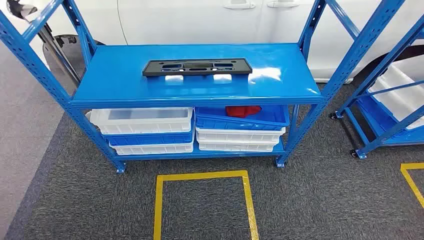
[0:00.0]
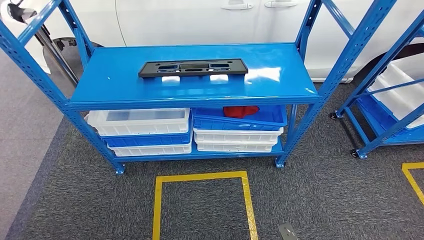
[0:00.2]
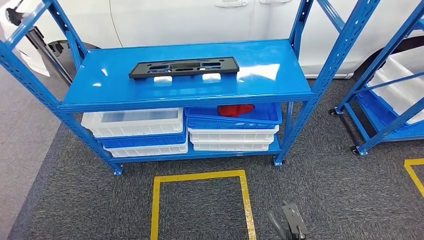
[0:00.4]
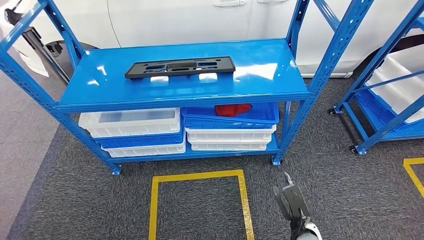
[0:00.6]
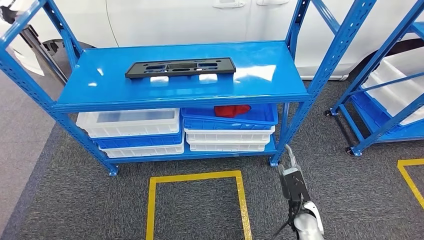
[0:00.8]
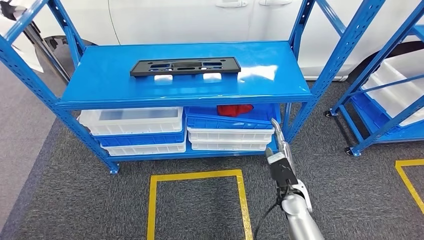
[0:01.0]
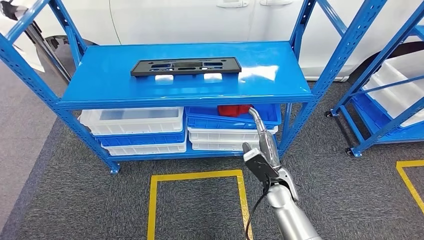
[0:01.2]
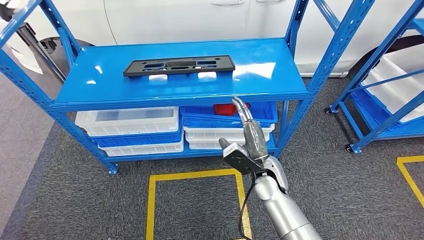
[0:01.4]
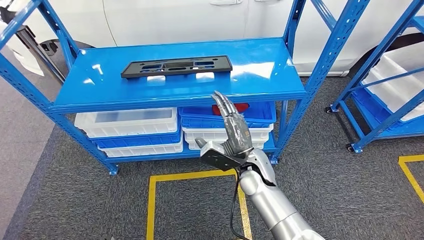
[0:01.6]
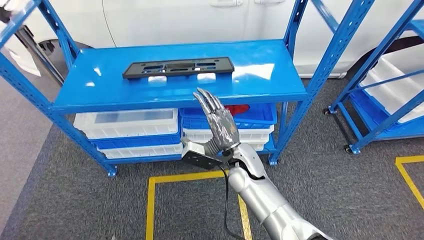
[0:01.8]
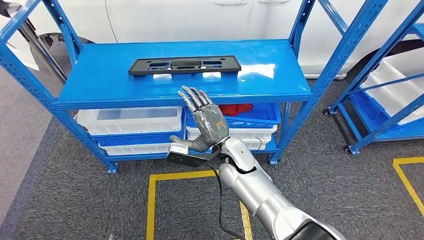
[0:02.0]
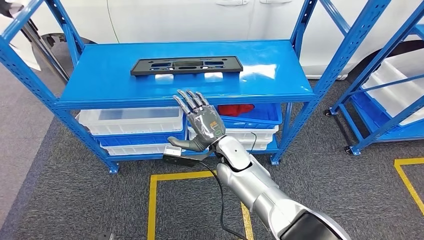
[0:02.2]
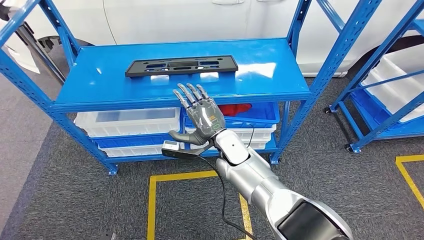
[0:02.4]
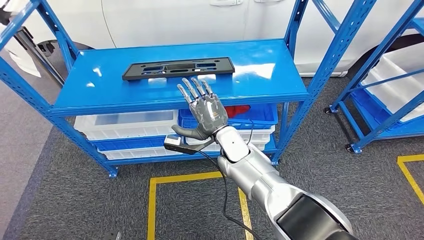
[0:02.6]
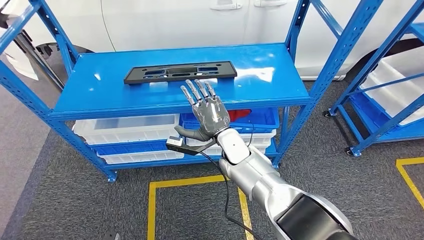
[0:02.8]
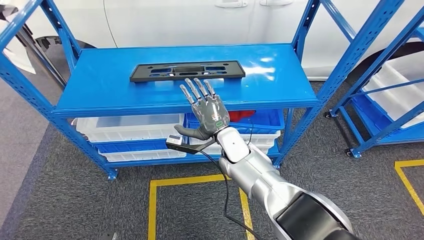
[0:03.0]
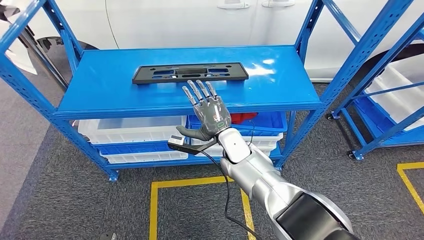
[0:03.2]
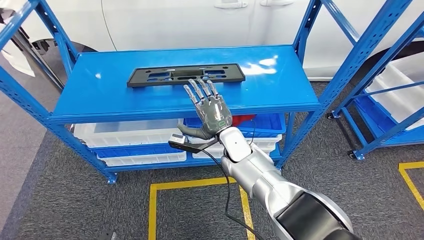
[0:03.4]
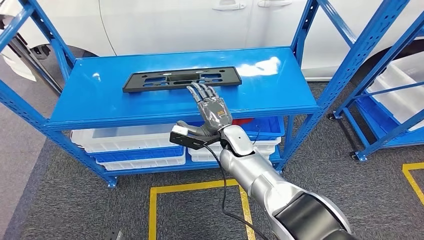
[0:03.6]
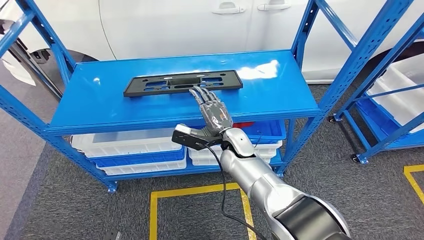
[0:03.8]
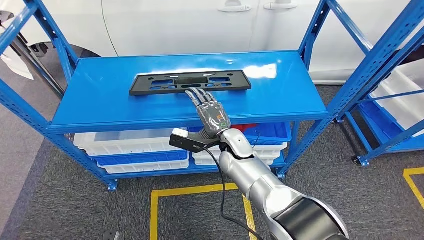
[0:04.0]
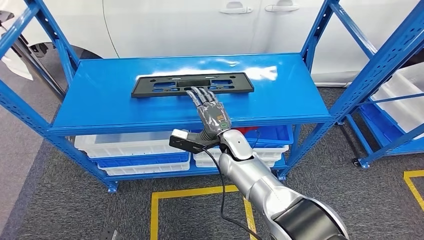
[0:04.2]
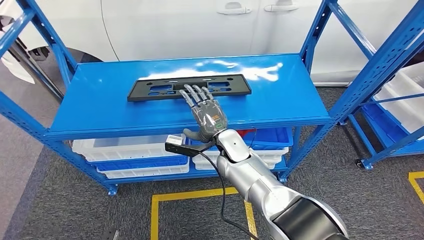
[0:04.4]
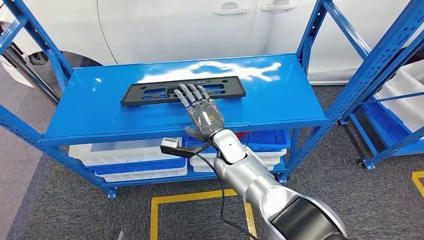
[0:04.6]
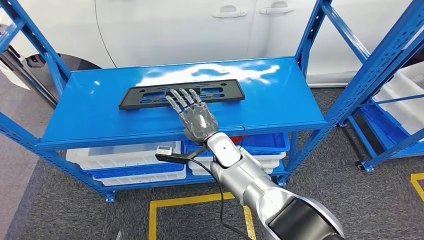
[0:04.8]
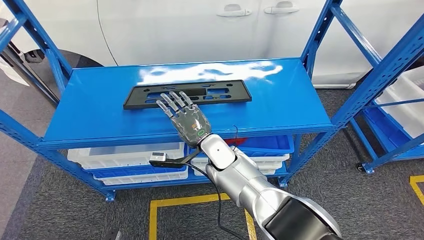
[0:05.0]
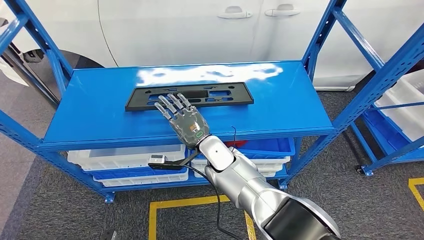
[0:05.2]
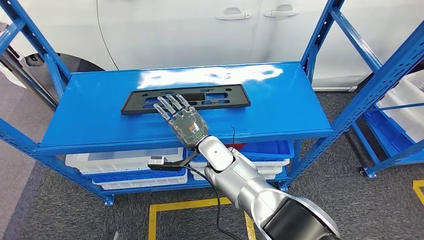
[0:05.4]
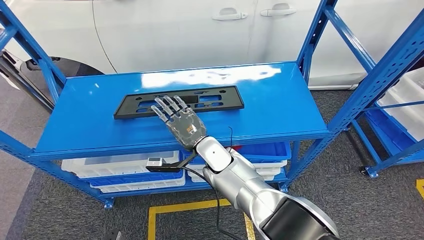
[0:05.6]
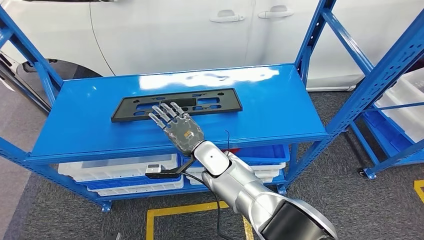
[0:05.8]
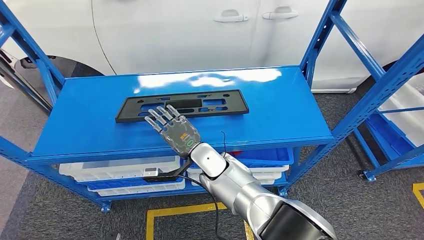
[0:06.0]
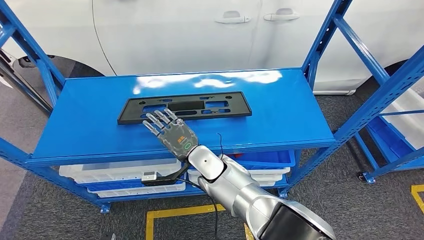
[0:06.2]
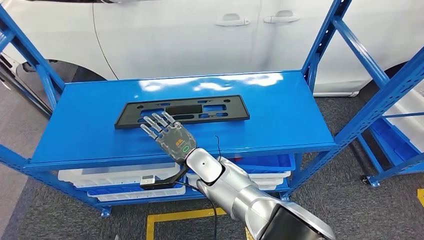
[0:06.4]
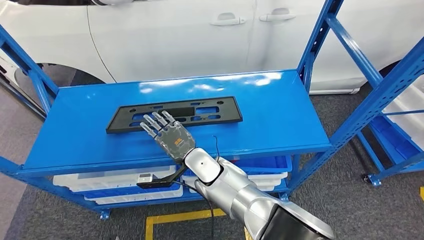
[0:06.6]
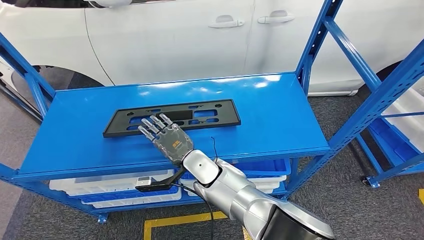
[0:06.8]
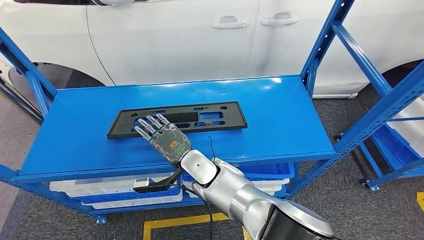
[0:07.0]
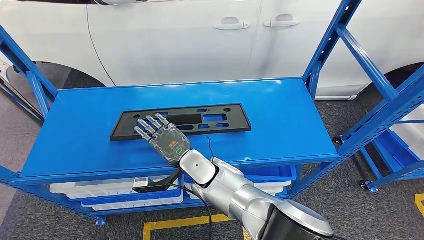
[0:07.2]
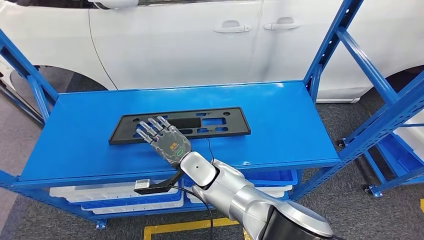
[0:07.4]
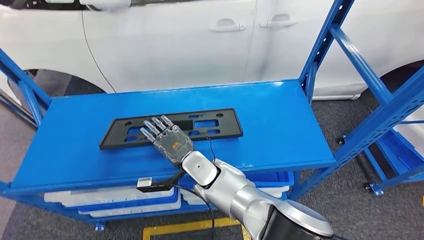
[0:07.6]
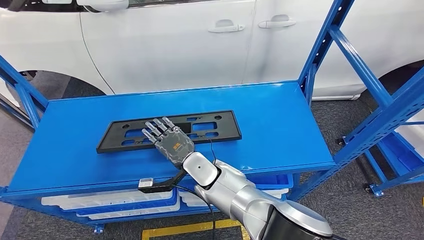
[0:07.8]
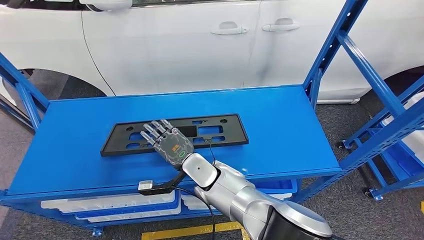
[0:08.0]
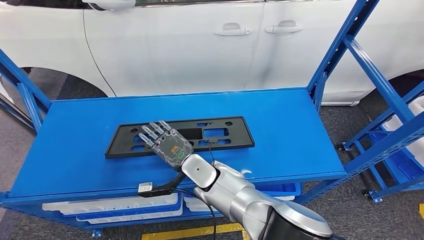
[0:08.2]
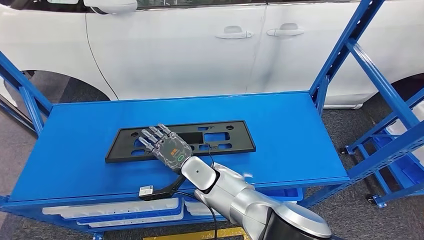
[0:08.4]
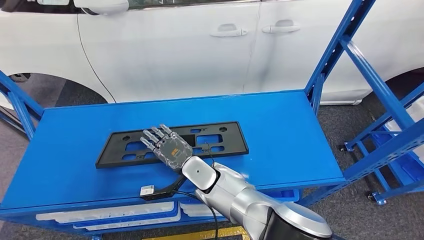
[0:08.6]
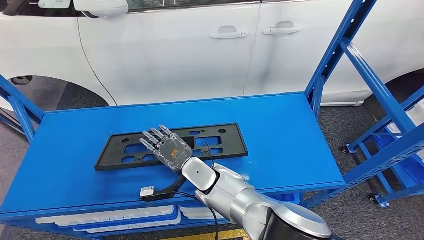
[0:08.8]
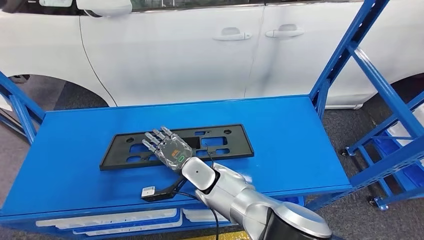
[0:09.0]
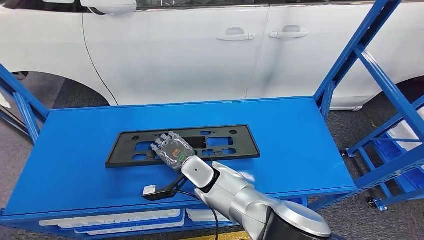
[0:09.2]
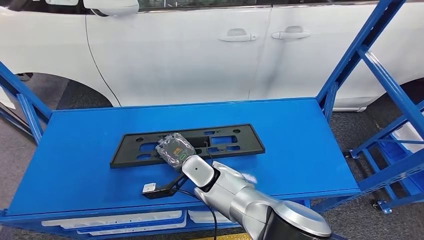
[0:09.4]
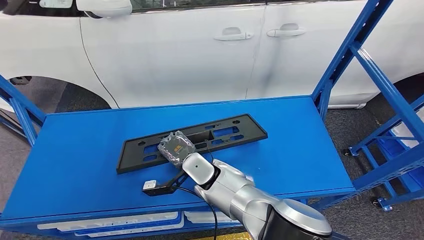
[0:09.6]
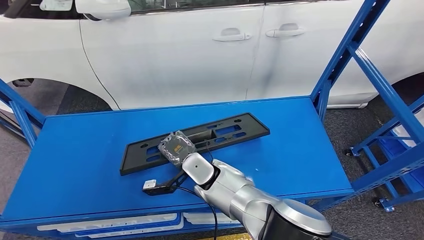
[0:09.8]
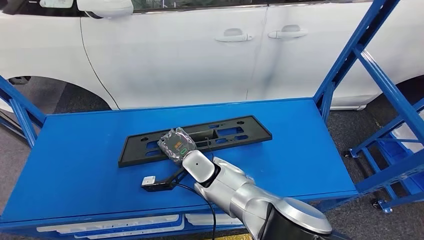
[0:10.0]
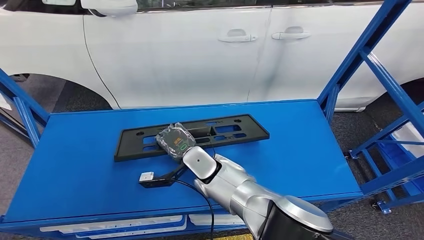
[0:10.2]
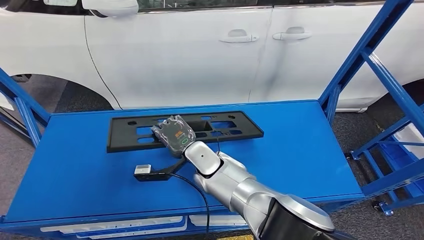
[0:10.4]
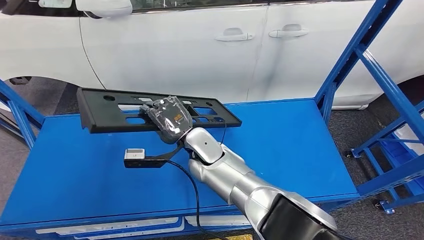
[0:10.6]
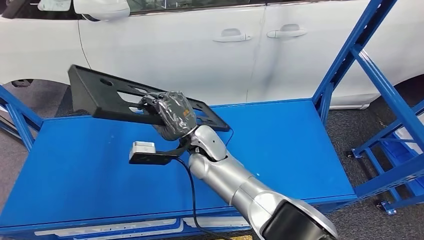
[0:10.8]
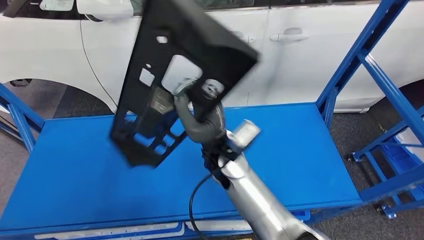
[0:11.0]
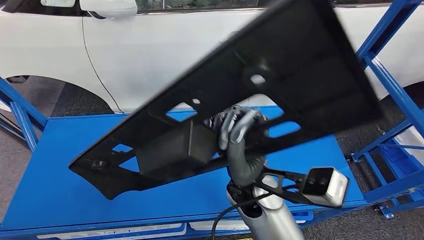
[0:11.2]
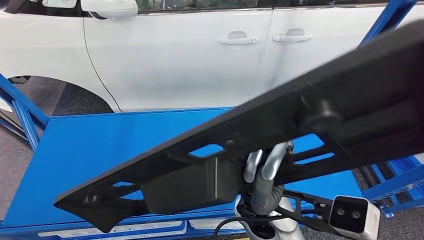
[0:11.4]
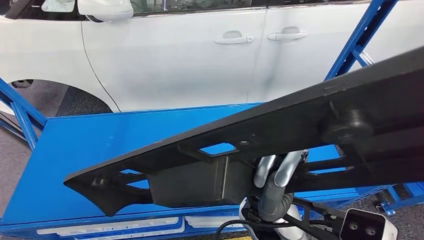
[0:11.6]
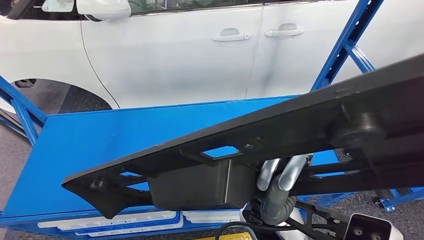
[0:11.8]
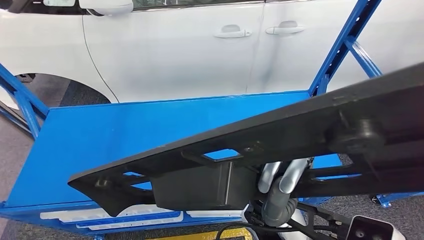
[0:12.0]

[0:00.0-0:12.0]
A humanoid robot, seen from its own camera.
Step, 0:00.0 to 0:11.8: Pick up the large material from the shelf.

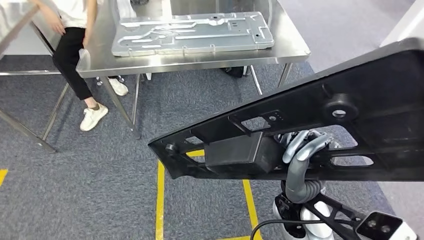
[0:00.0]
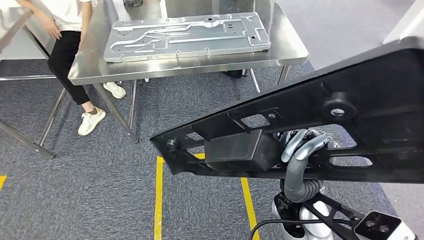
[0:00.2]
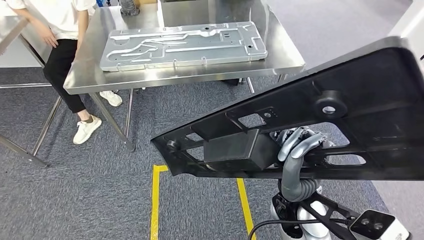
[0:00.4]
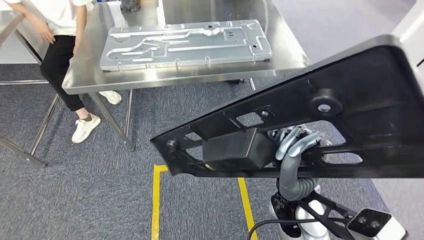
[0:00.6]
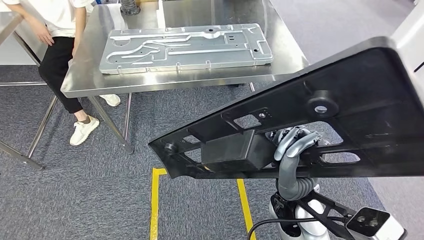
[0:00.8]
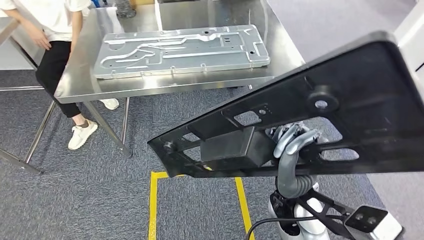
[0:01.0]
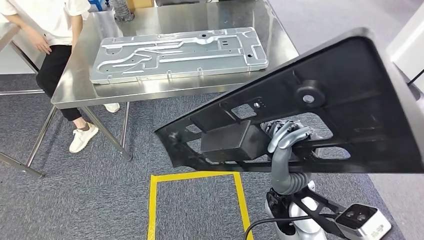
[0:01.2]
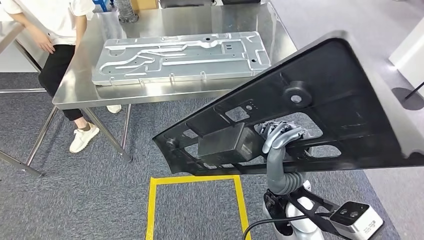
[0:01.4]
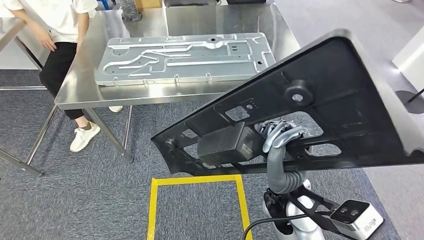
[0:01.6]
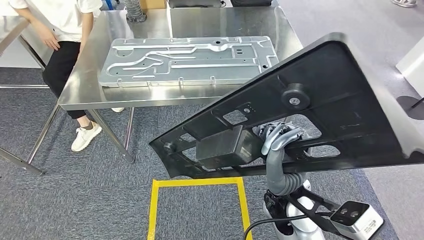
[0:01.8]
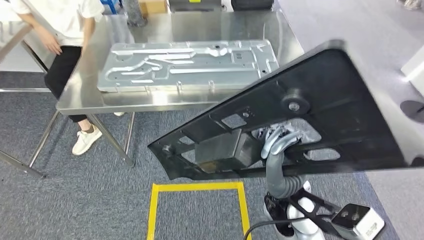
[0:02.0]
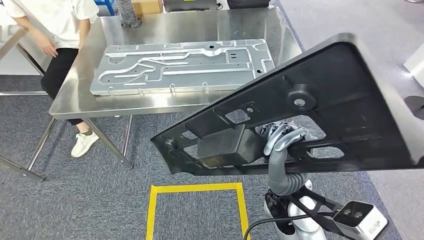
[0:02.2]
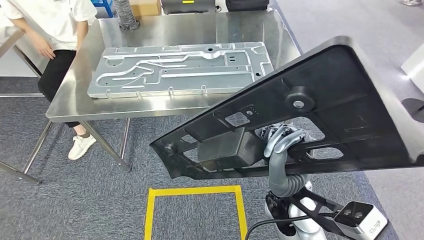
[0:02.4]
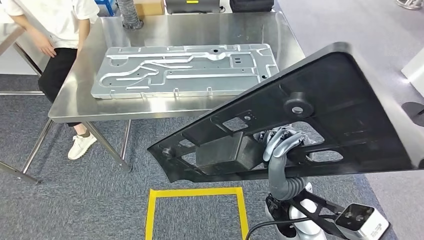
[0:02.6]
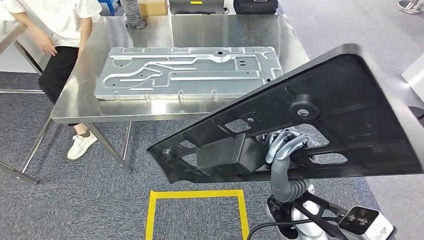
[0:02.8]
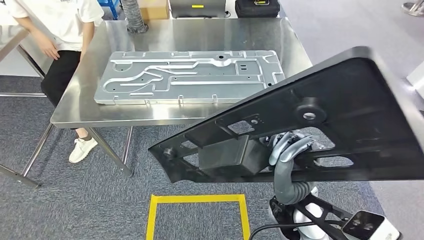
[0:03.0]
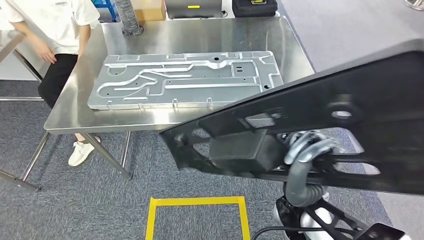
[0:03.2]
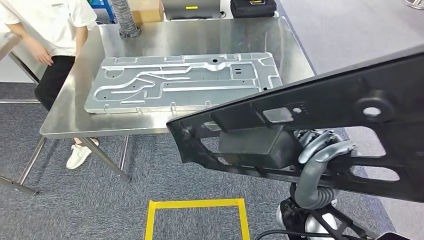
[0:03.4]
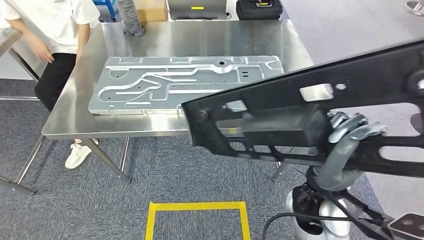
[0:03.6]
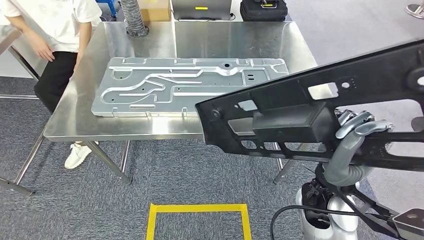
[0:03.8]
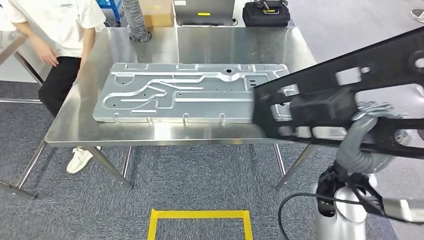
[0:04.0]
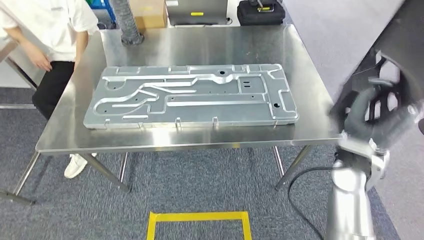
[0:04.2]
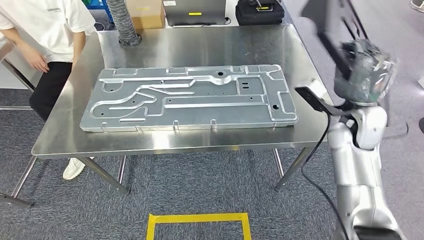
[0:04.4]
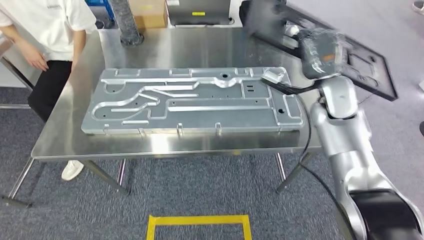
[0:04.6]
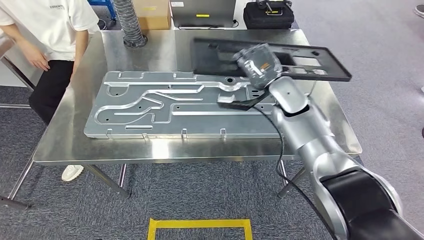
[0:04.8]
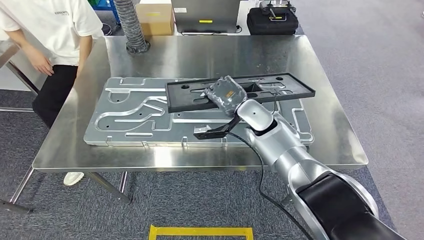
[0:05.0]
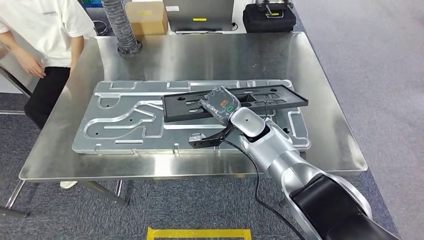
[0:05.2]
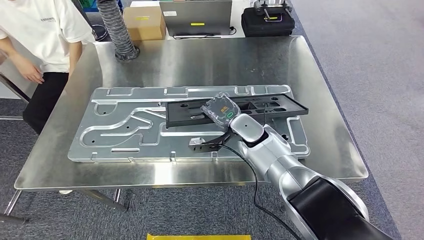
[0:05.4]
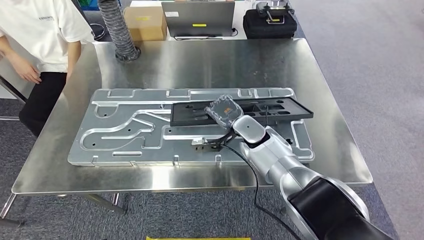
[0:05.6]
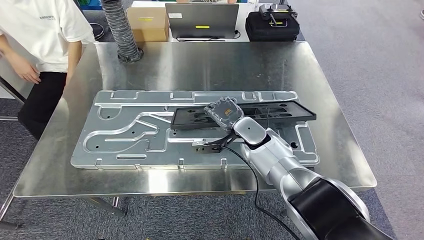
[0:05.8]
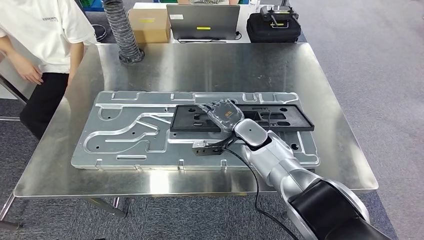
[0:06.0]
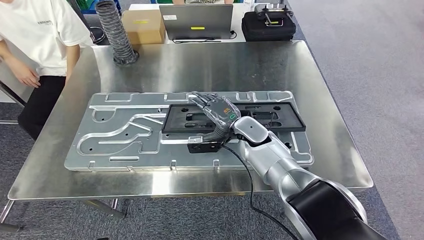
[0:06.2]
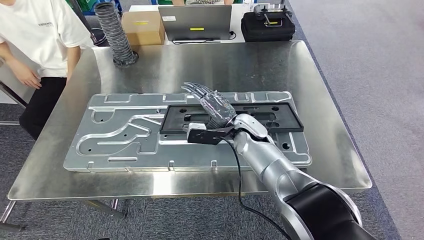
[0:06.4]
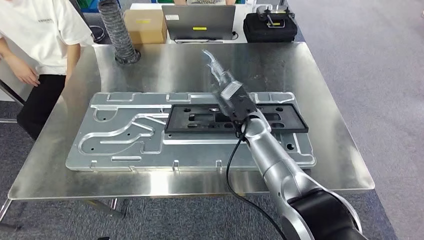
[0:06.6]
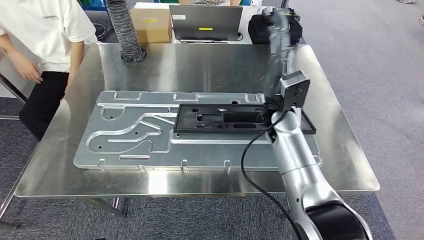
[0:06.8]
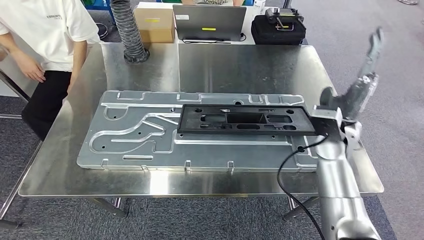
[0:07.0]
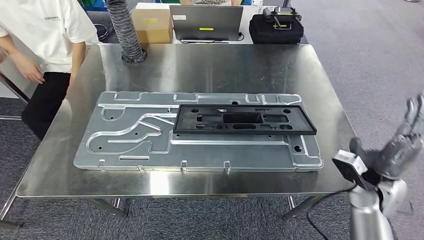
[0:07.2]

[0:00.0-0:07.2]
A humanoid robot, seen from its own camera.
Step, 0:00.0 to 0:05.4: Move the large material to the workbench.
